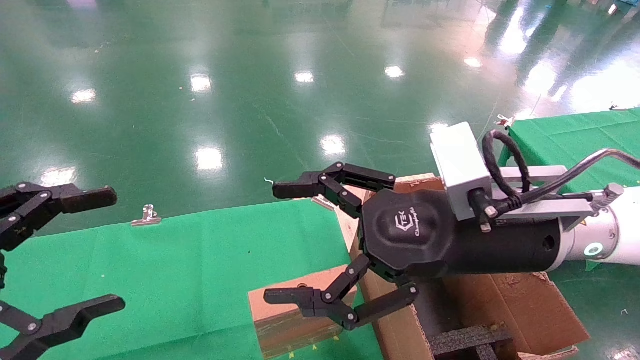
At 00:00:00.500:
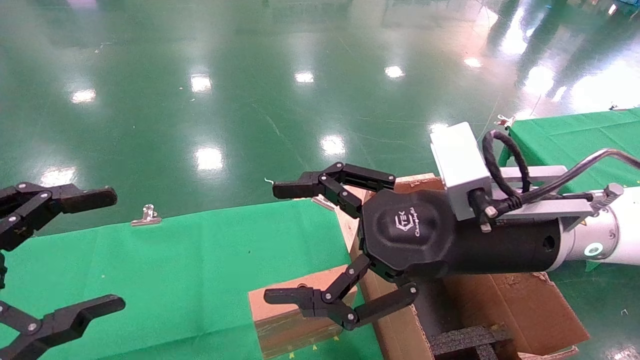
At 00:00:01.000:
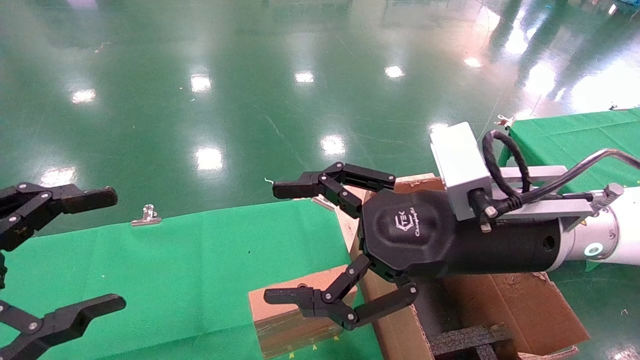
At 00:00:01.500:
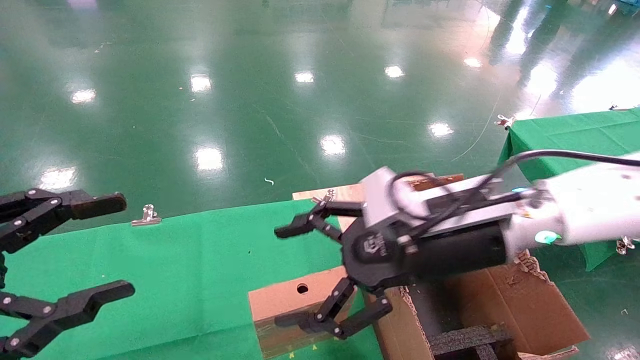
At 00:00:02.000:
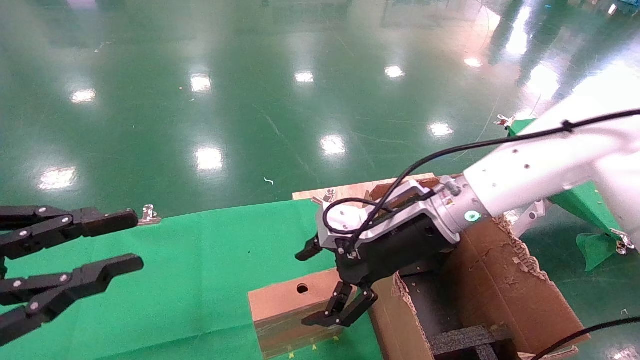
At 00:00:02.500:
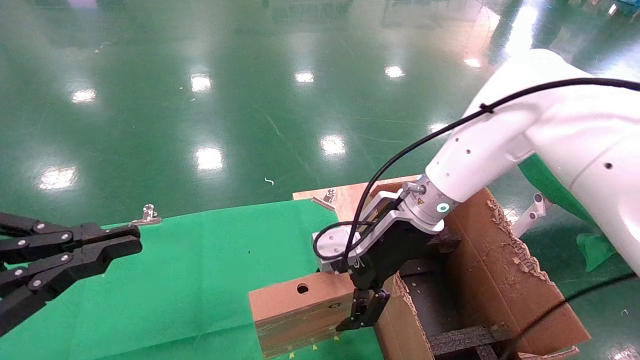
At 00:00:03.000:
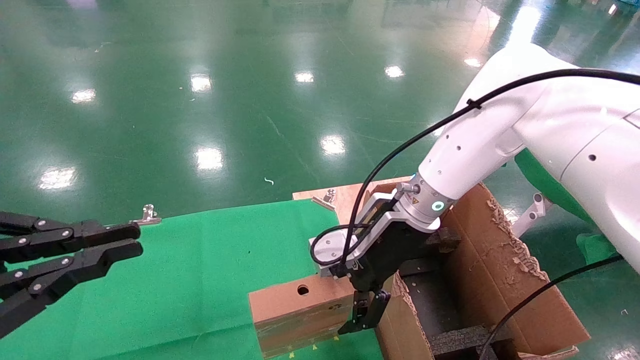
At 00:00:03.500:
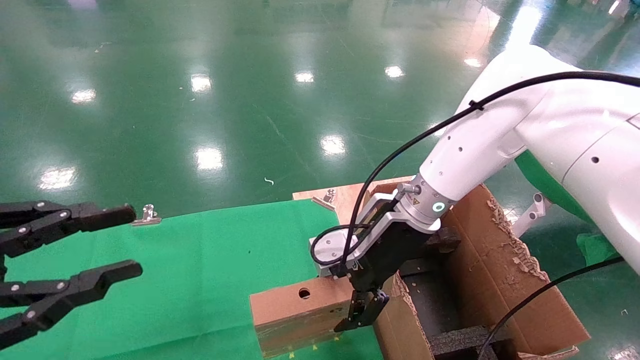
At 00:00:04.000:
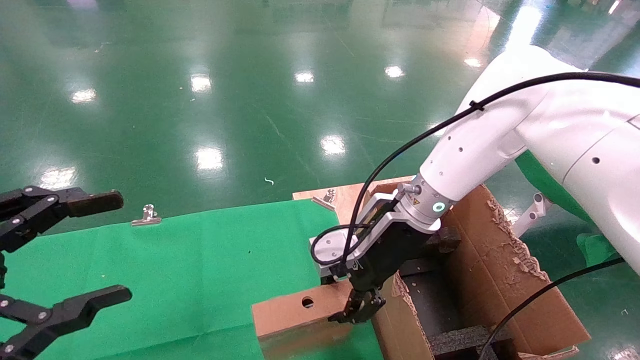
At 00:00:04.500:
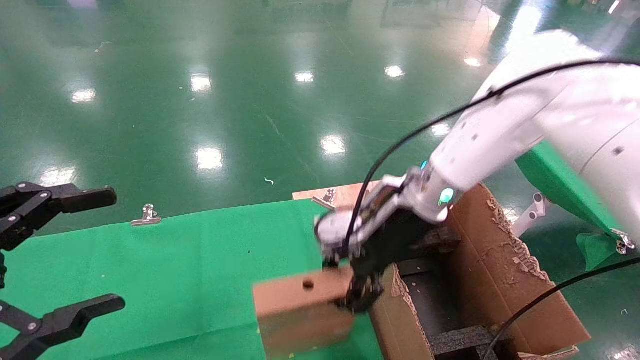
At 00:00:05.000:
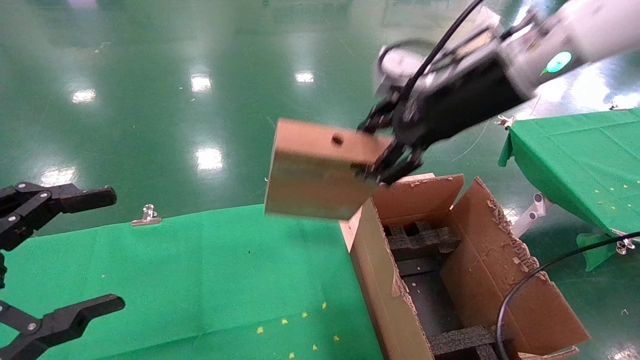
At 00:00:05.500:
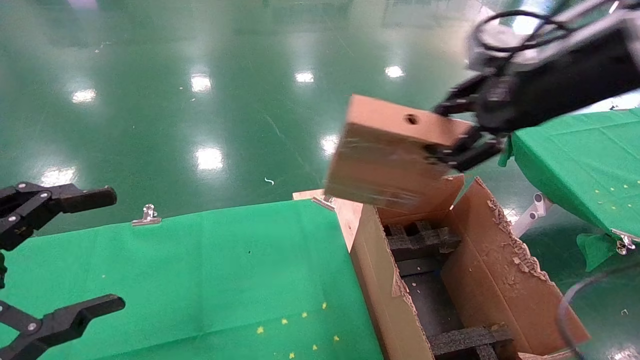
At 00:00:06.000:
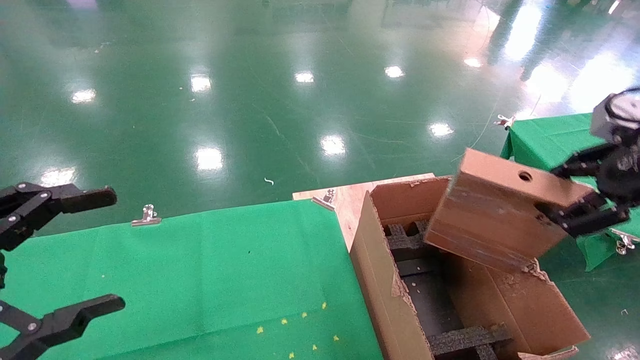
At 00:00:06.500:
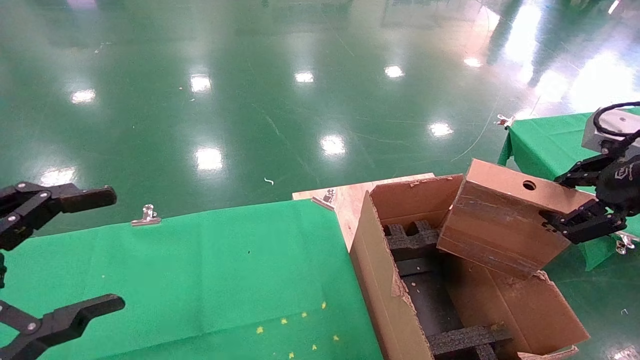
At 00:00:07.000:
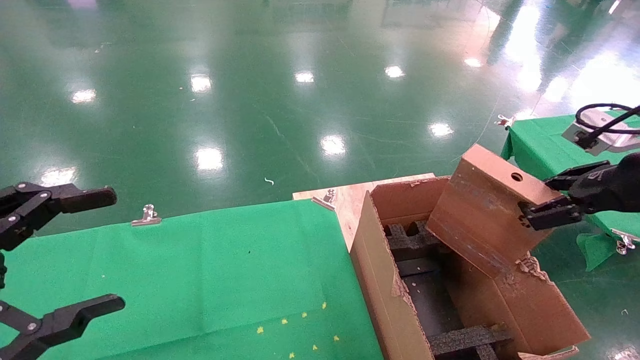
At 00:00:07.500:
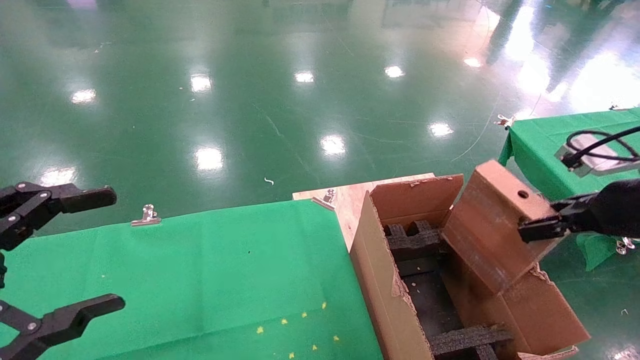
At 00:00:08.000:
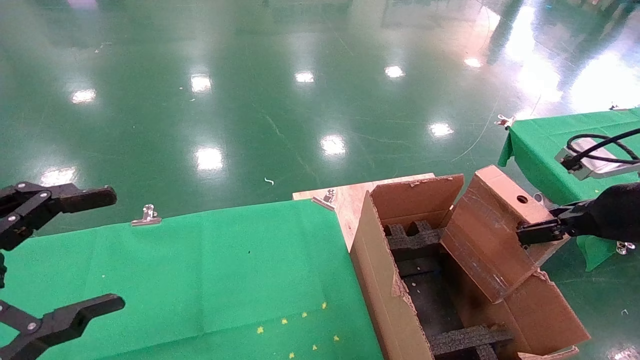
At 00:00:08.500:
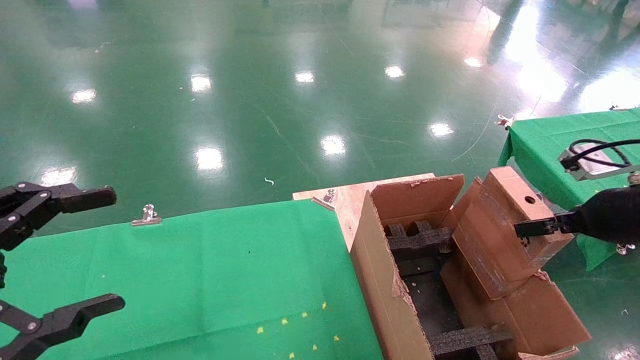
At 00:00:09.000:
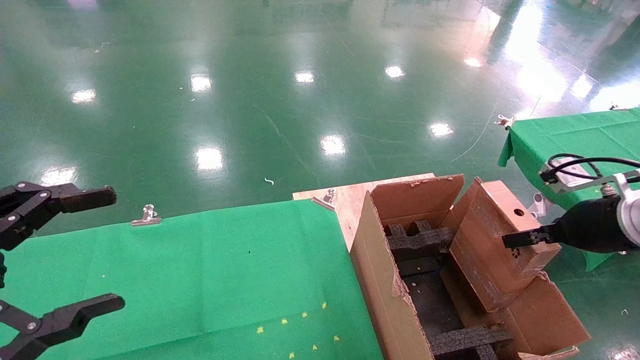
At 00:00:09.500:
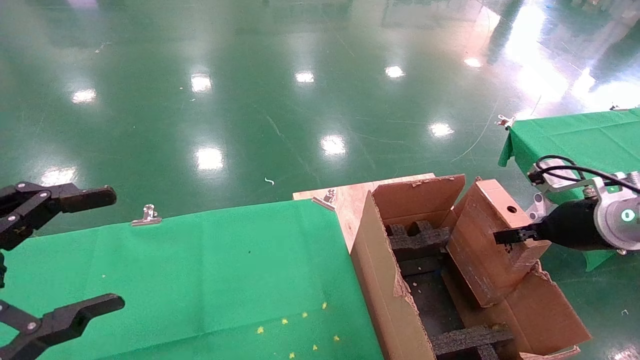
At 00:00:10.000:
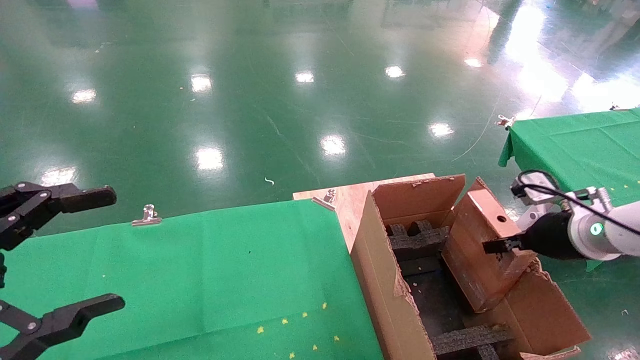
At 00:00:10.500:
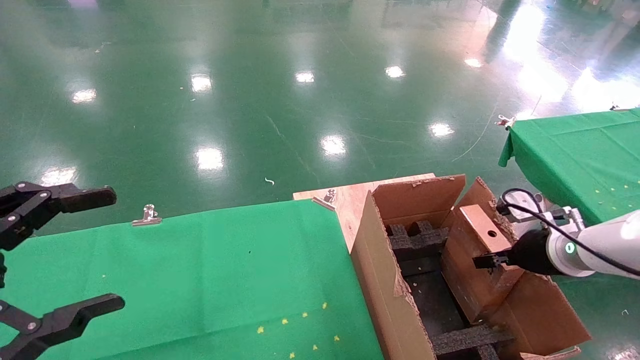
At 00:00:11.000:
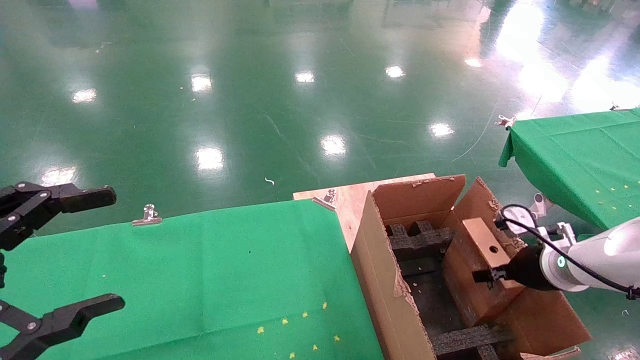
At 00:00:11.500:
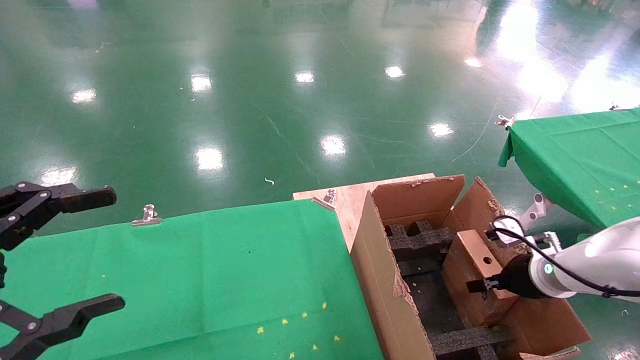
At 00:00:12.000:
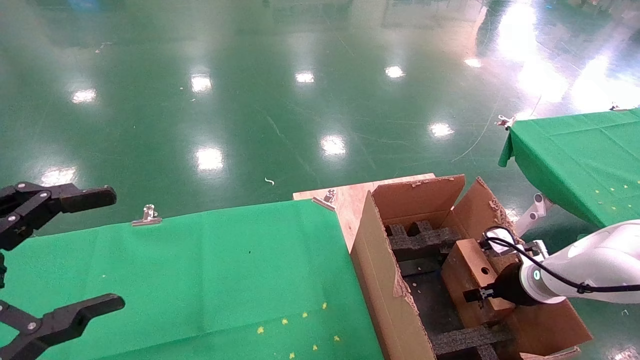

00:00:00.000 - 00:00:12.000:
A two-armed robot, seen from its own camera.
Task of the whole recording: using a robotic arm to pick up a cardboard box and palace it the carton.
Step, 00:00:01.500 - 00:00:04.000: Pick up the mouse and the power cord paper box.
00:00:00.000 - 00:00:02.000: The left gripper closes. The right gripper goes roughly 10 cm forward.
00:00:02.000 - 00:00:04.000: The left gripper closes, then reopens. The right gripper closes up.
00:00:04.000 - 00:00:06.000: The right gripper shifts about 35 cm to the right, backward and upward.
00:00:06.000 - 00:00:08.000: The right gripper shifts approximately 10 cm downward.
00:00:08.000 - 00:00:10.000: The right gripper moves downward and forward, approximately 10 cm.
00:00:10.000 - 00:00:12.000: The right gripper shifts approximately 10 cm downward.

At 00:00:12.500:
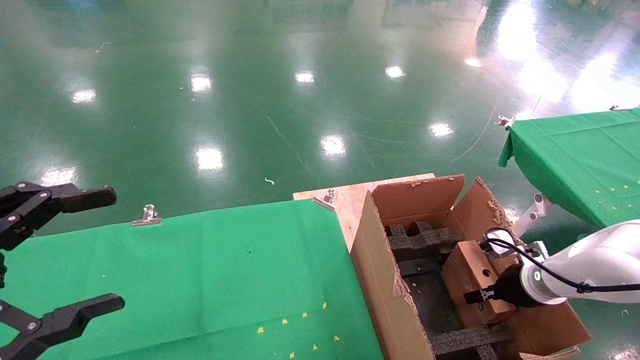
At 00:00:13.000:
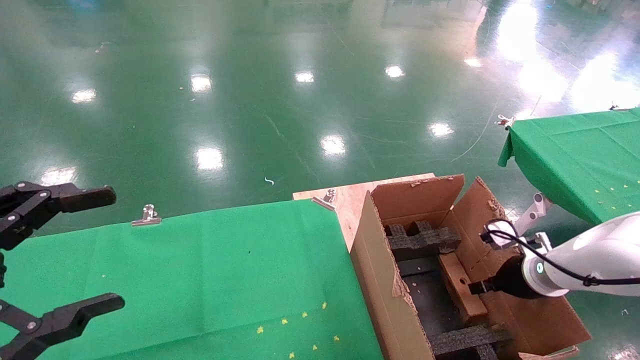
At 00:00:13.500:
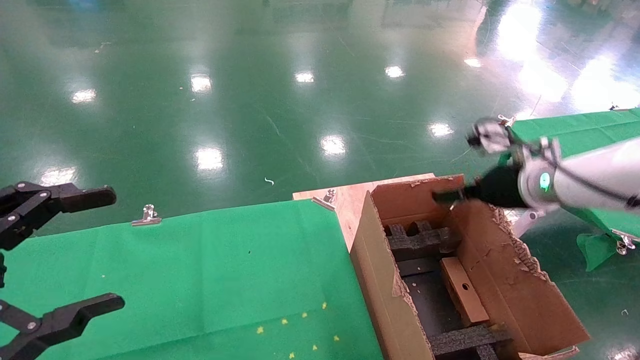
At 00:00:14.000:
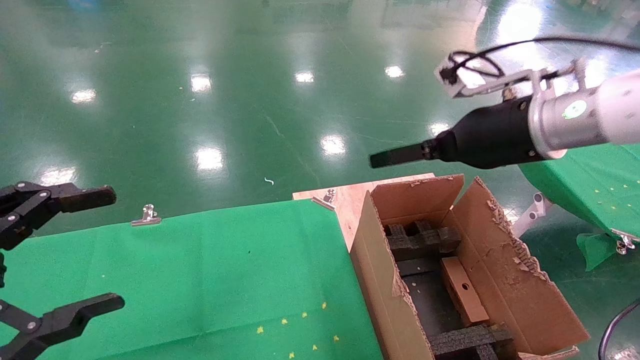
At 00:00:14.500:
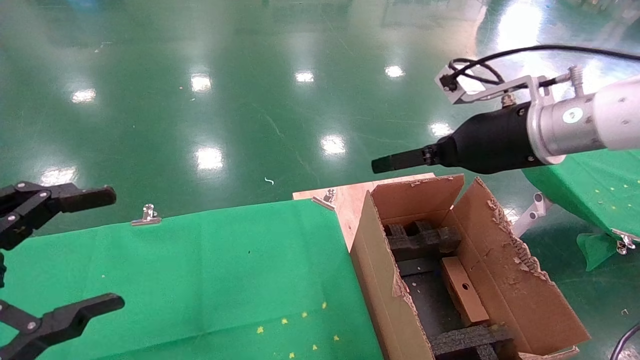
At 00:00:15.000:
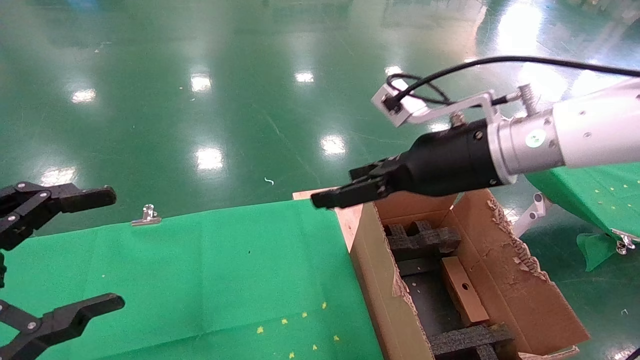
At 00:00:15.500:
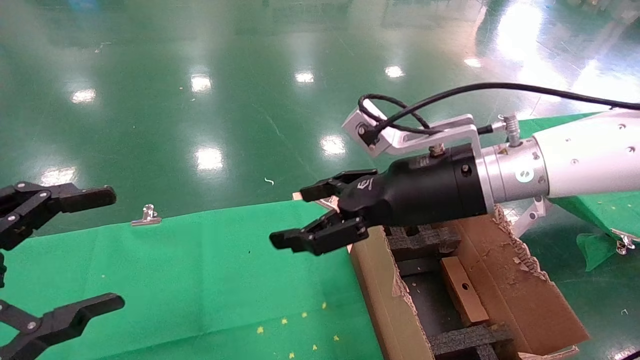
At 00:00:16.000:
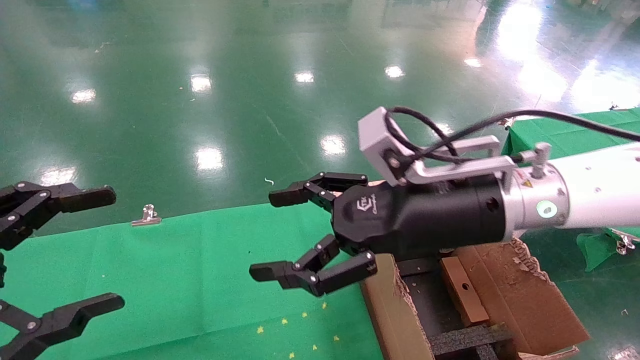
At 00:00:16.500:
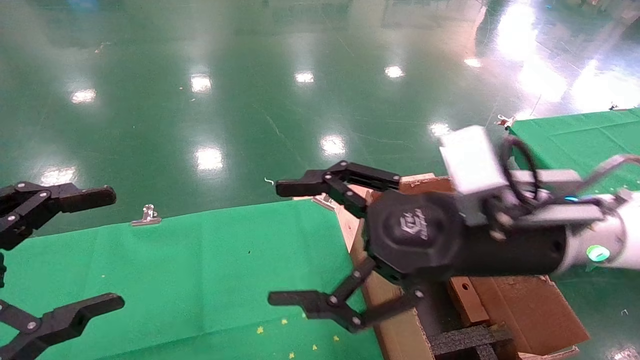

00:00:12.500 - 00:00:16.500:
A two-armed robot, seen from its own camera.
Task of the whole recording: using a robotic arm to pick up a cardboard box and palace it the carton.
00:00:12.500 - 00:00:14.500: The right gripper goes about 30 cm upward and to the left, and opens.
00:00:14.500 - 00:00:16.500: The right gripper goes some 10 cm backward, downward and to the left.
